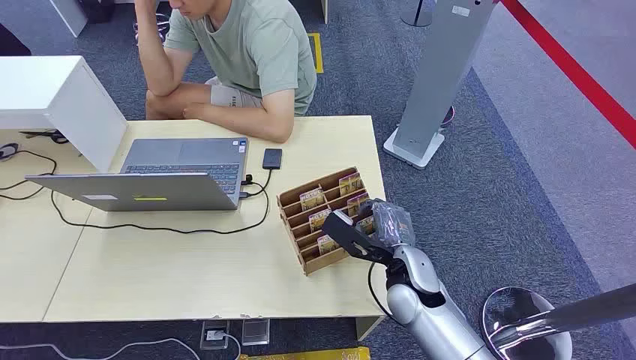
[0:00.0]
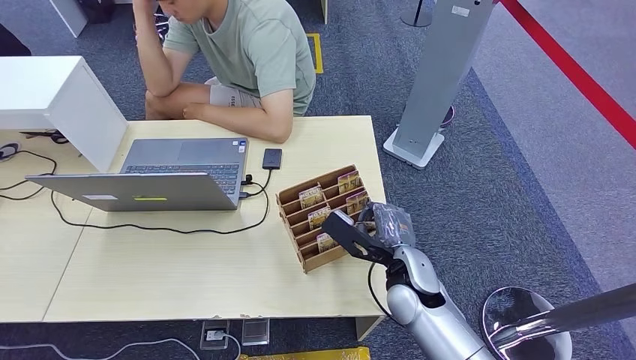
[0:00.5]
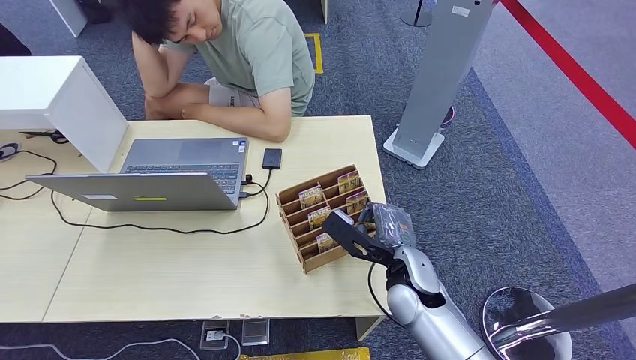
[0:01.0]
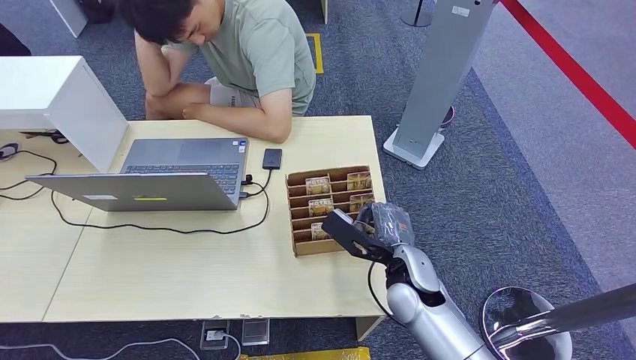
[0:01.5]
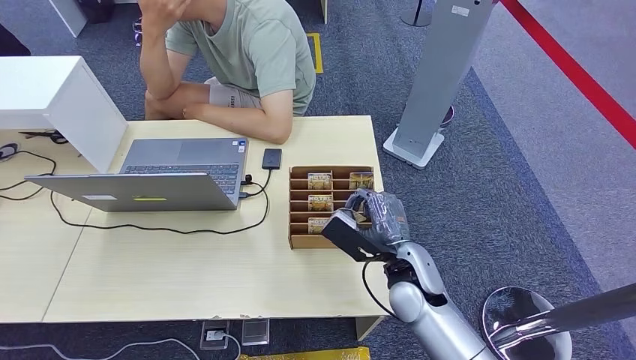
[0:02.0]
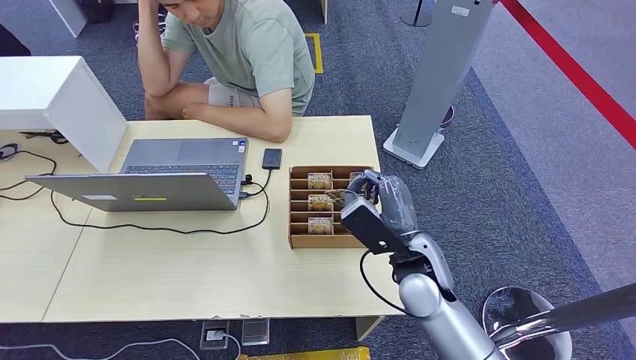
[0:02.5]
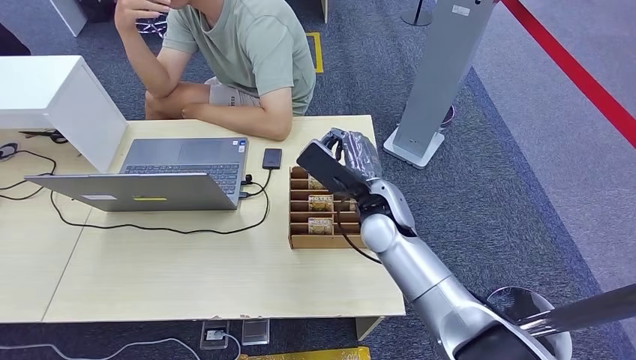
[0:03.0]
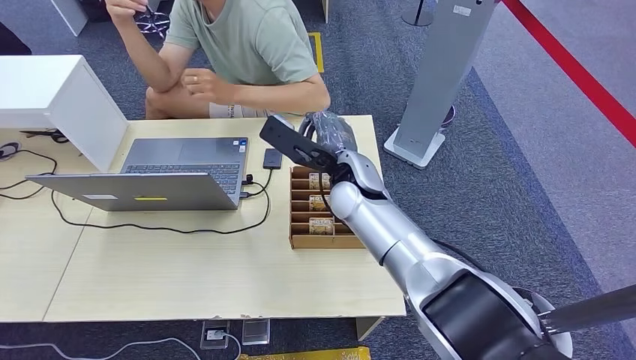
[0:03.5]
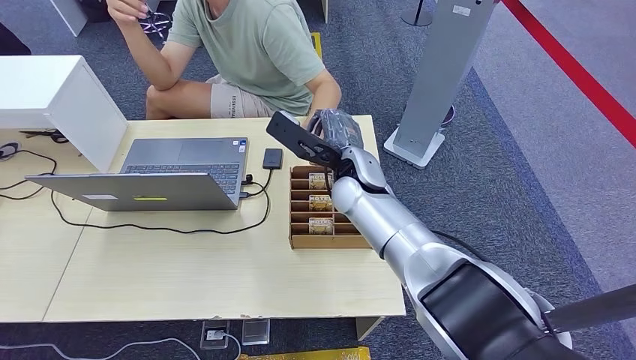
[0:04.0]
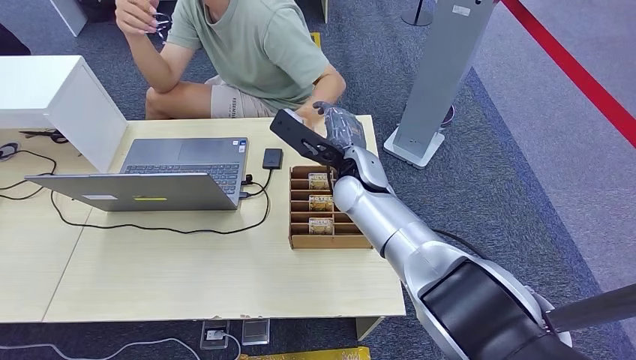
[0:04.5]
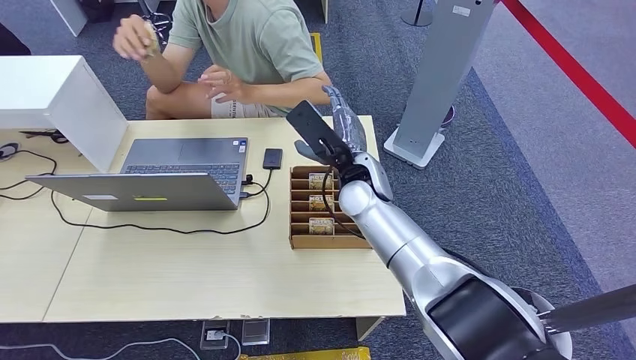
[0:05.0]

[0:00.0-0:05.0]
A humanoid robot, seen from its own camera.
Step, 0:00.0 to 0:02.0: Pick up the key card from the card box.
Step, 0:04.0 to 0:05.0: Hand the key card to the target.
0:02.5 to 0:05.0: The right hand moves forward, to the left and upward, some 15 cm.
